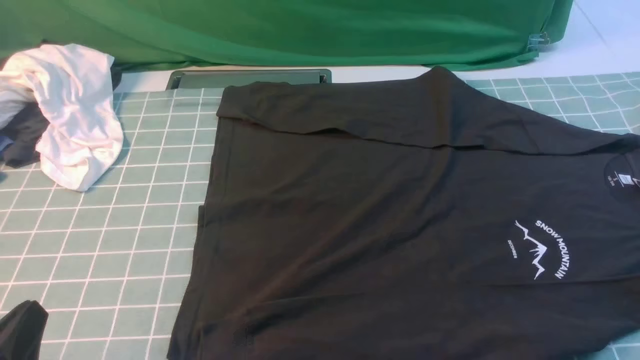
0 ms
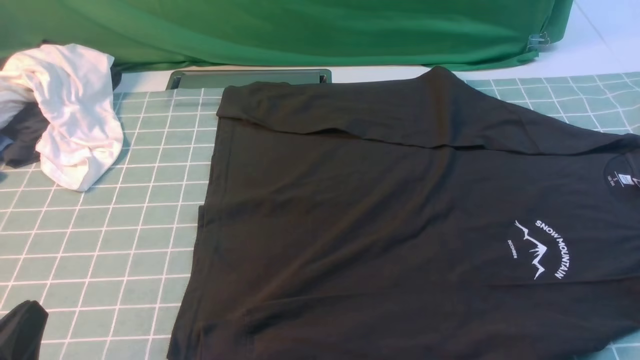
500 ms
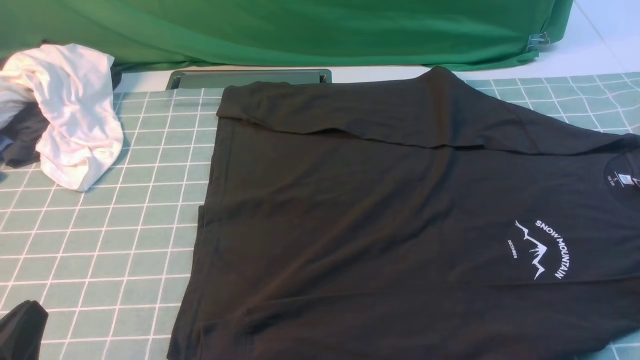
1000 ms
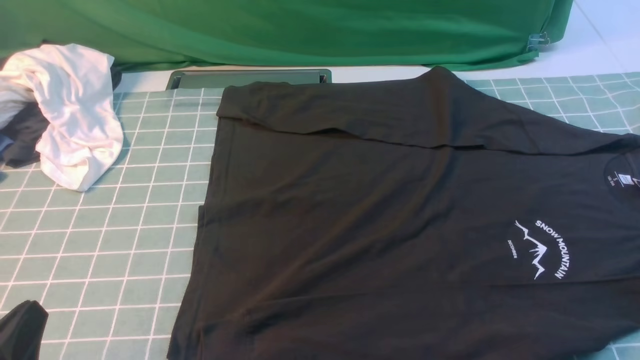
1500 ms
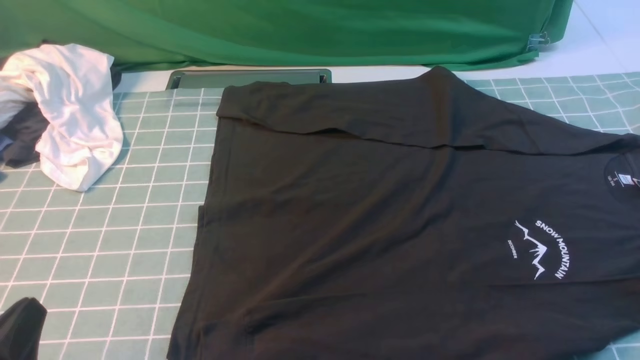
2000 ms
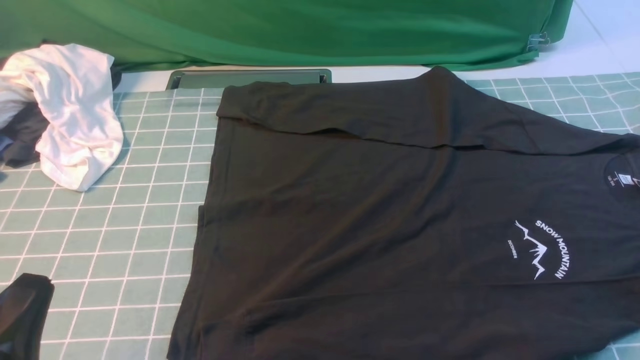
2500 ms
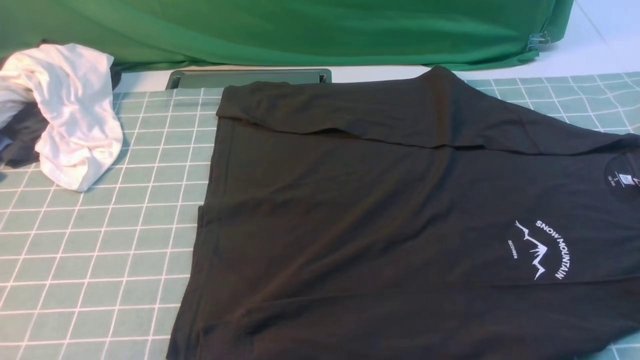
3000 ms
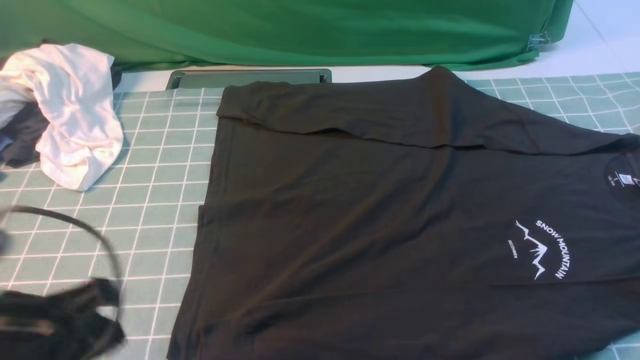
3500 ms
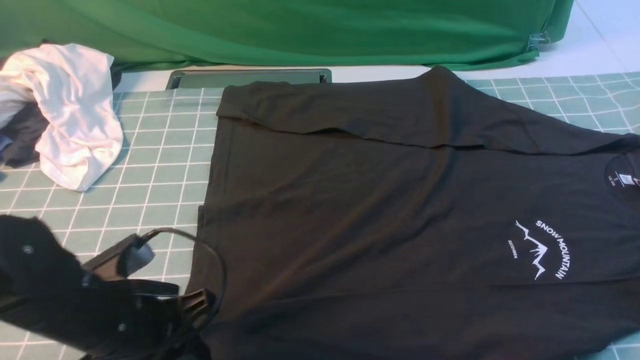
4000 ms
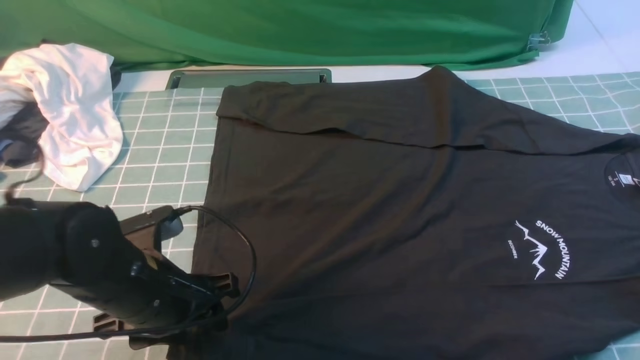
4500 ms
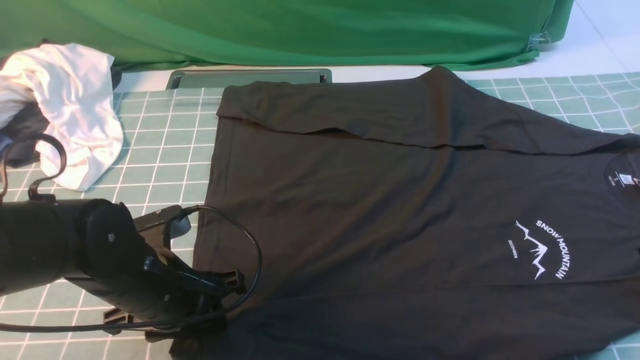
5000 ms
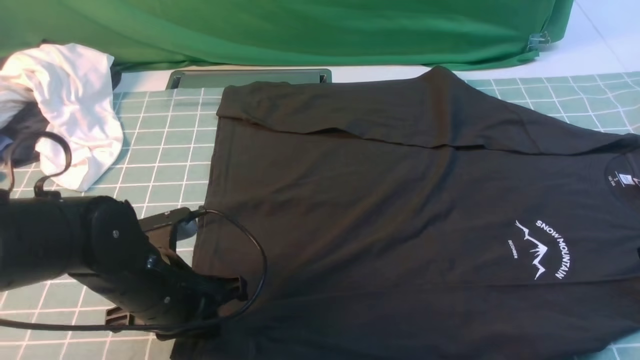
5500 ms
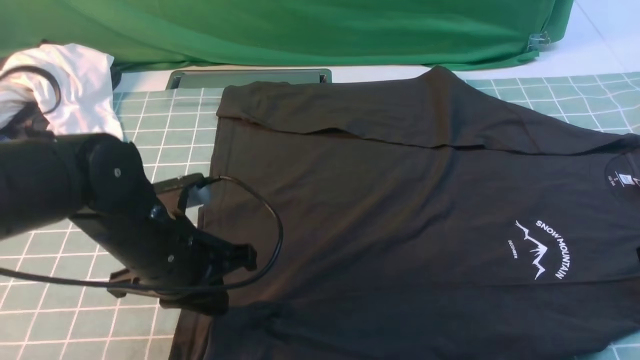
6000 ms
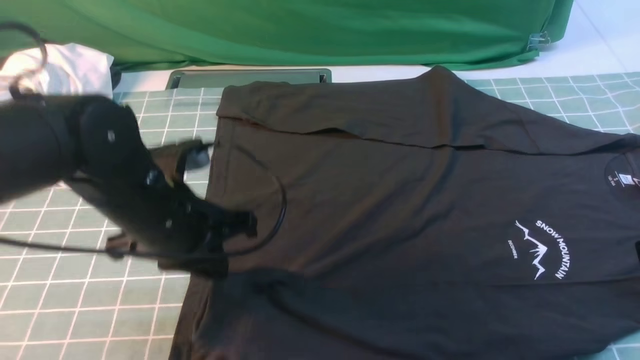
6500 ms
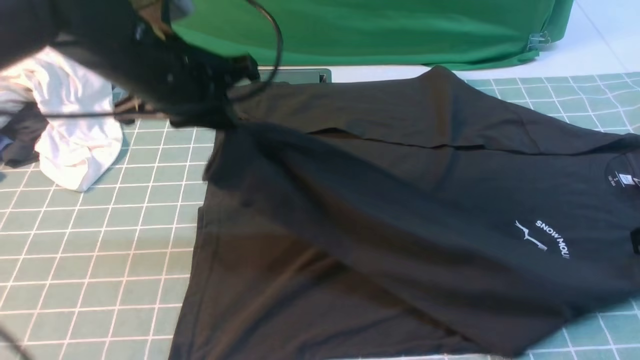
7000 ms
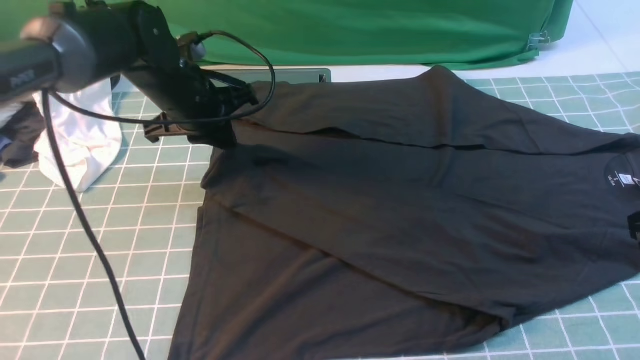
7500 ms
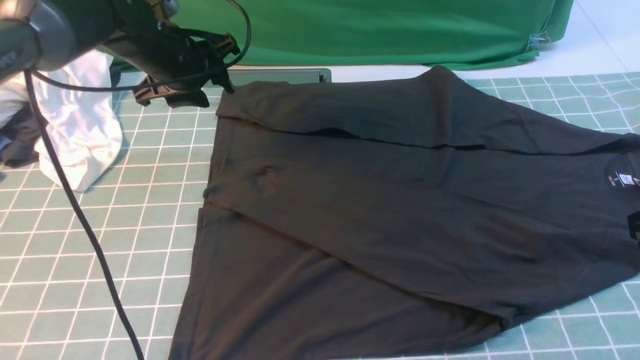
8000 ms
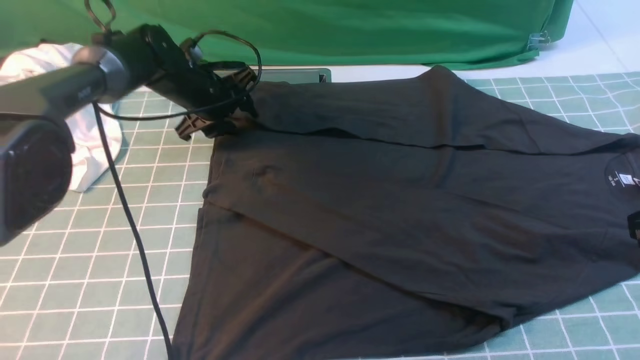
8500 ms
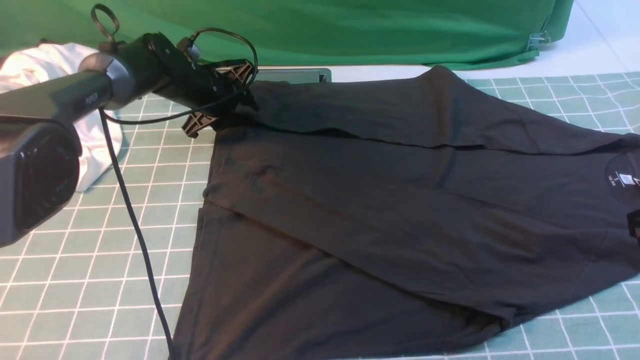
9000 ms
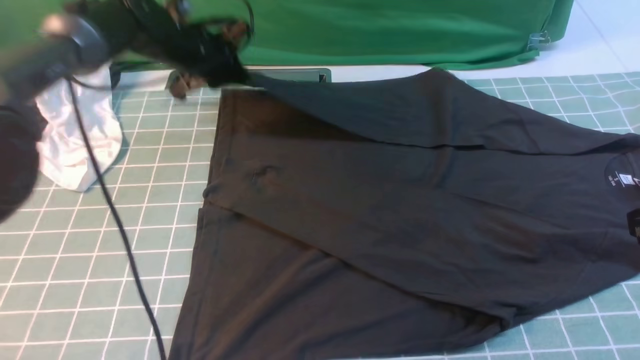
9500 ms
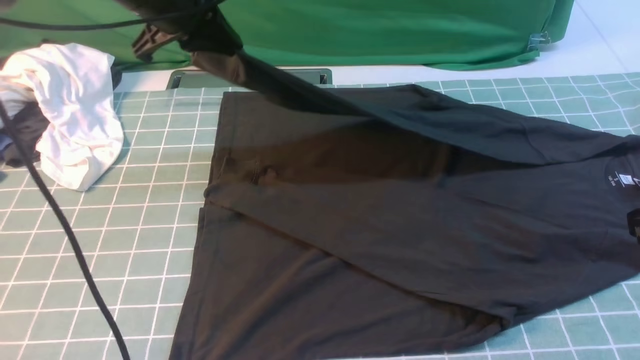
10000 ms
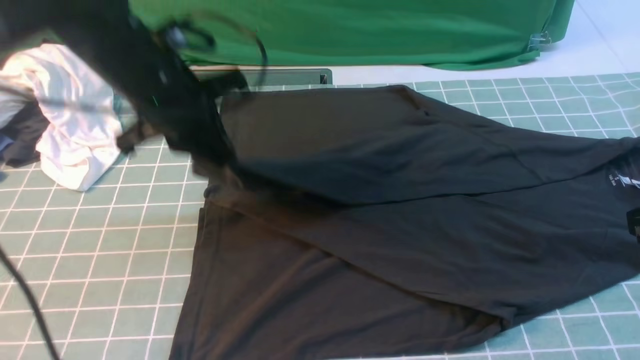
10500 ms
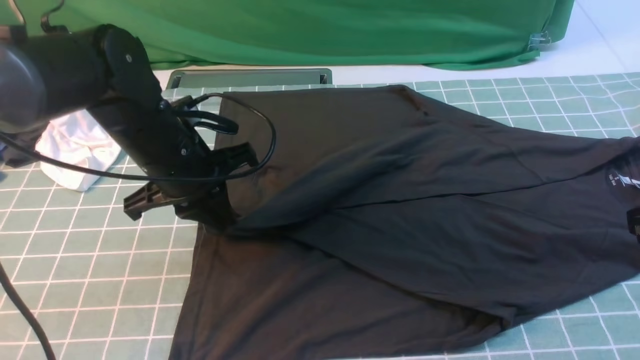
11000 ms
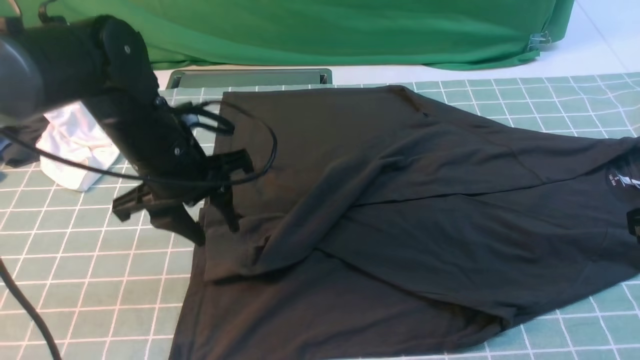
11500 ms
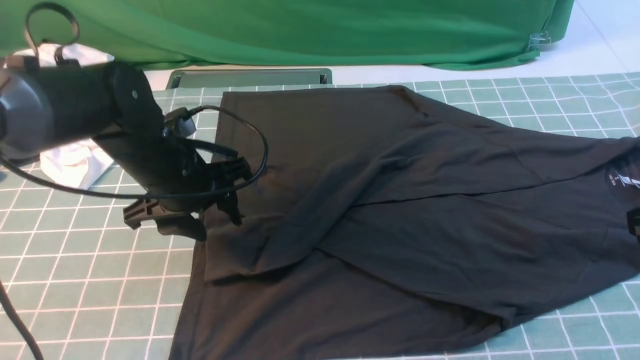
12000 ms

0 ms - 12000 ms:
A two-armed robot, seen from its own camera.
Step, 0 ms - 5000 ms: use the left arm to clamp the cuff closest to it.
Step, 5500 ms - 7500 ms: use the left arm to drag and place the cuff at the centered position on the left edge of the fabric.
Step, 8000 ms - 9000 ms: use the left arm to clamp the cuff farthest from it.
Step, 9500 ms - 11000 ms: use the left arm to drag and drop the cuff onto the cuff closest to the left arm.
2000 ms - 4000 ms: The left gripper is displaced forward and to the right by roughly 15 cm, and opens up.
4000 ms - 6000 ms: The left gripper travels forward by approximately 5 cm, and closes its fingers.
6000 ms - 8000 ms: The left gripper shifts roughly 25 cm forward, and opens up.
8000 ms - 10000 ms: The left gripper heads upward, covering roughly 10 cm, and closes.
10000 ms - 12000 ms: The left gripper is displaced downward and backward by approximately 15 cm, and opens its fingers.

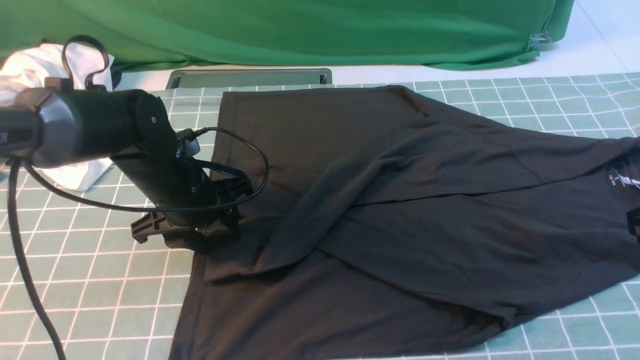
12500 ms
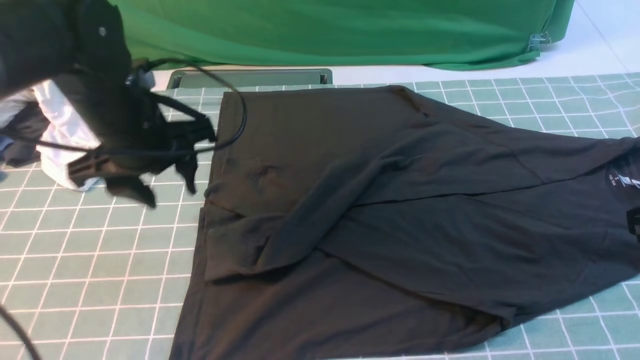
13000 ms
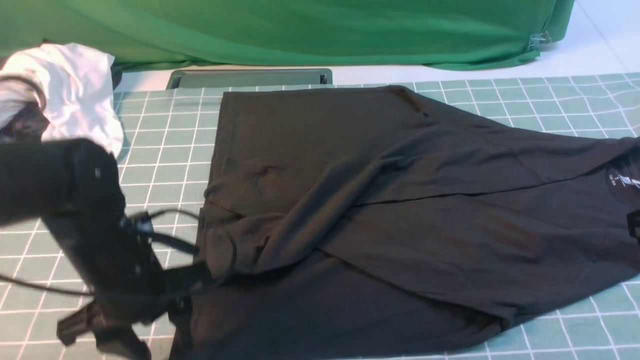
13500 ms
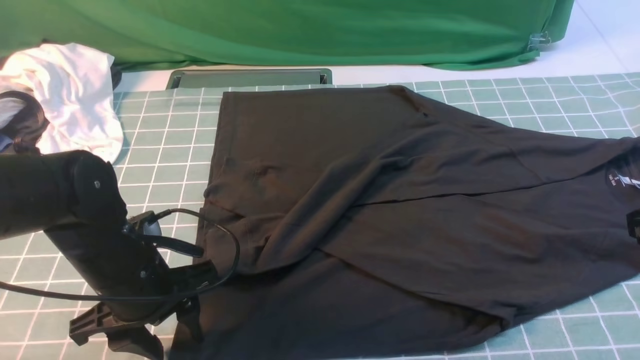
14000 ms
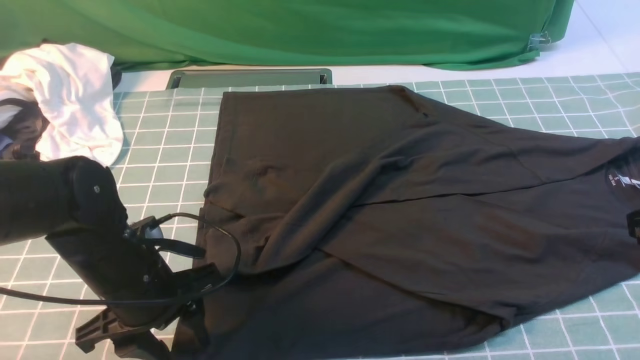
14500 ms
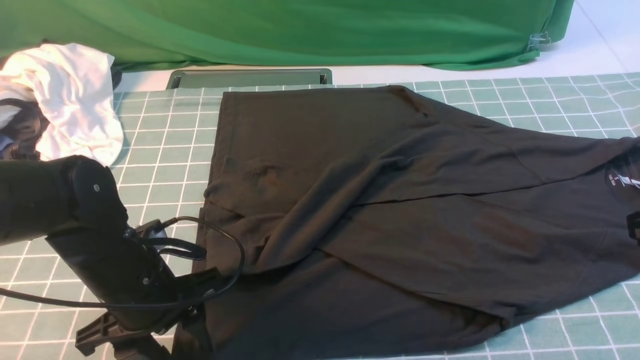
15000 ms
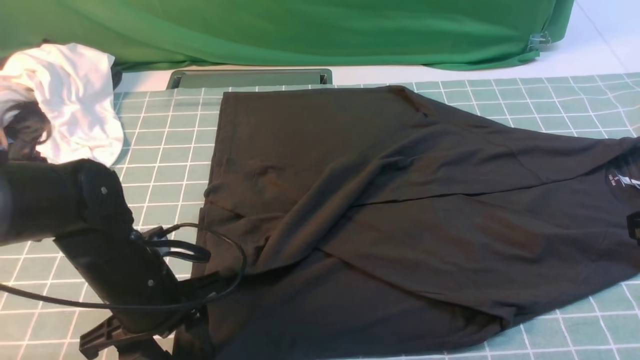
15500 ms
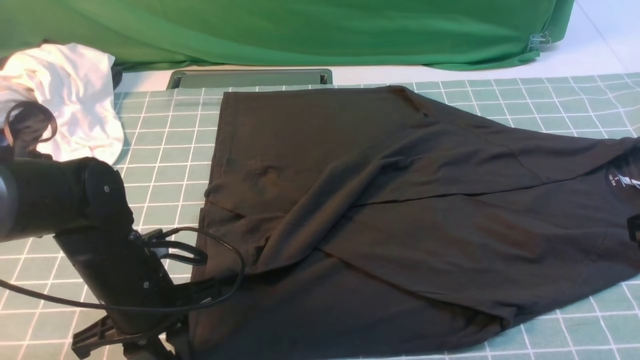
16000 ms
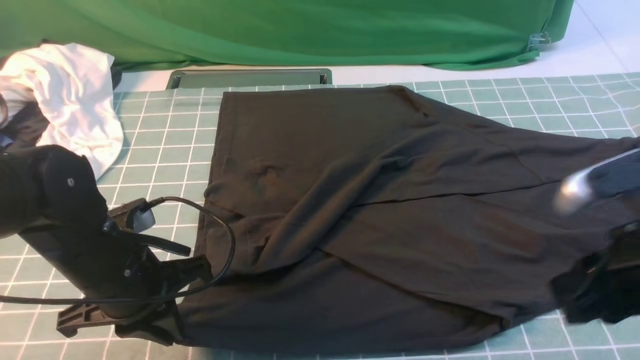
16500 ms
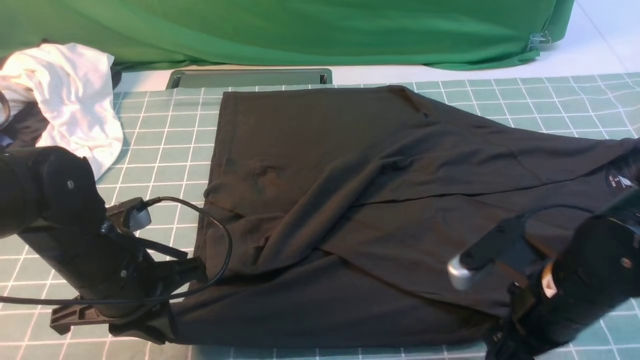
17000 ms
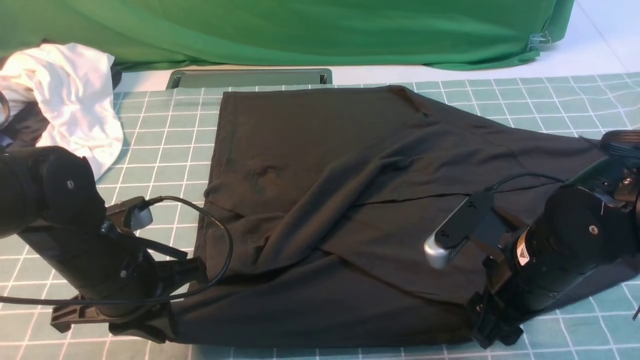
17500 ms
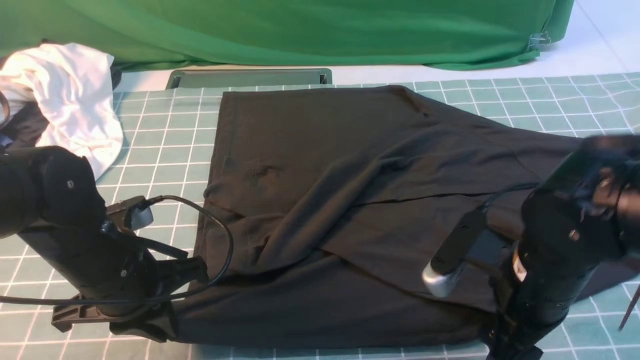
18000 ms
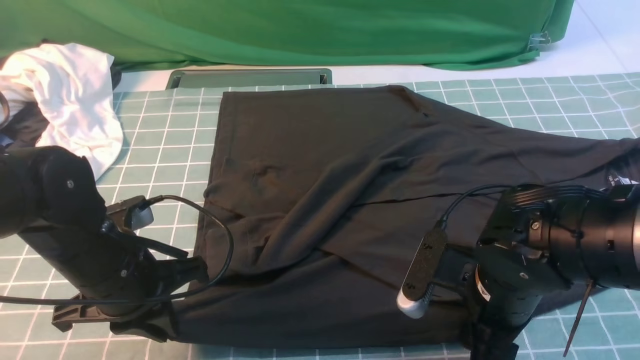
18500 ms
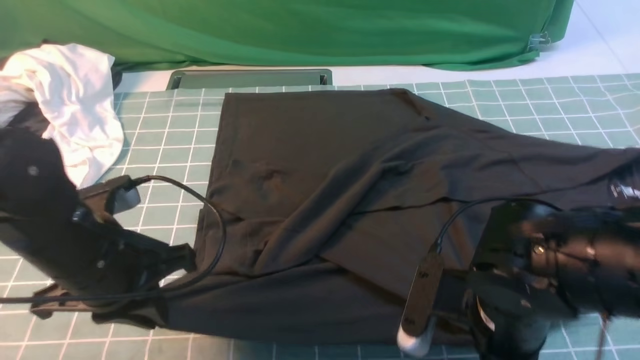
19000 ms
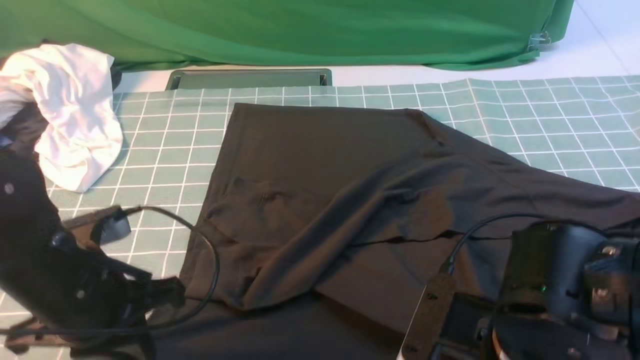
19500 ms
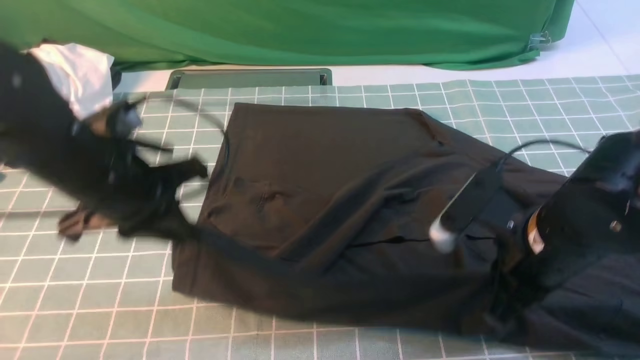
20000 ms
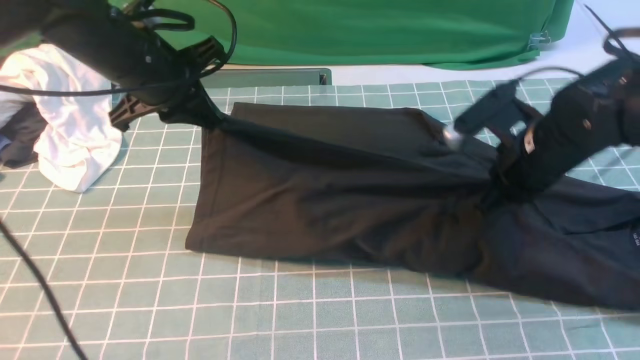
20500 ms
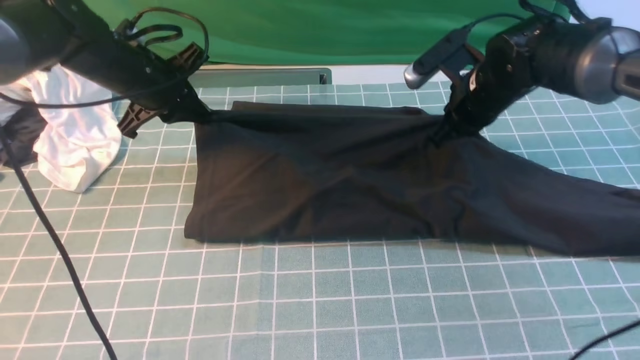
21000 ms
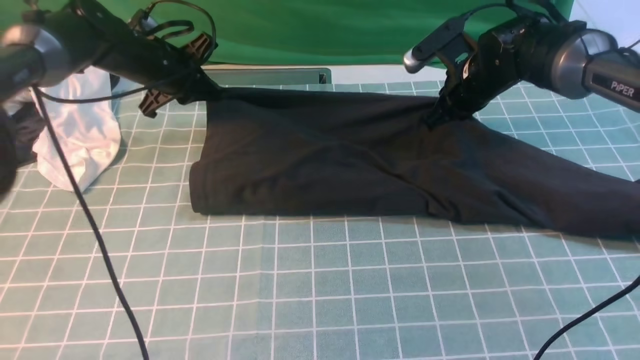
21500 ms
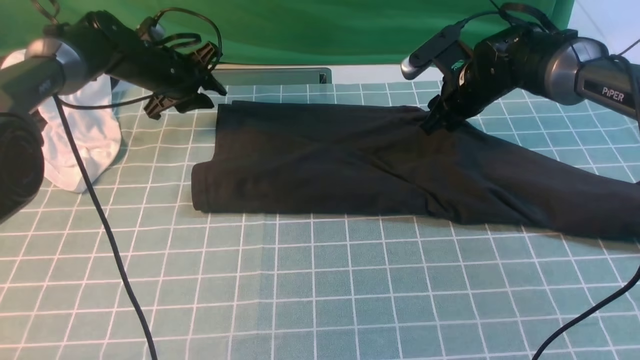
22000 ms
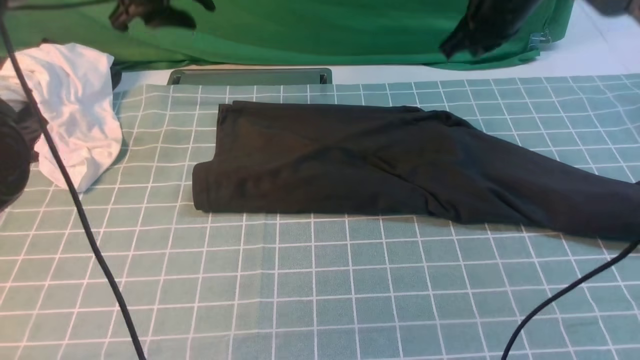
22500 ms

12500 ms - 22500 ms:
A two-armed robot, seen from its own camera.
Step, 12500 ms - 19000 ms: use both arms simultaneously to clamp the lower edge of the clothing fabric.
Step, 19500 ms - 22000 ms: use both arms to drag the lower edge of the fabric forward and fold it over the upper edge.
12500 ms - 14500 ms: The left gripper heads backward, covering about 10 cm.
14500 ms - 16500 ms: The right gripper goes roughly 5 cm to the left, while the left gripper closes.
16500 ms - 18500 ms: The right gripper travels to the left and downward by some 15 cm.
18500 ms - 20500 ms: The left gripper shifts roughly 20 cm forward and upward; the right gripper shifts roughly 15 cm forward and to the right, and closes its fingers.
20500 ms - 22500 ms: The left gripper is displaced forward by approximately 10 cm, and opens up, while the right gripper heads forward and upward, covering about 15 cm, and opens and closes again.
